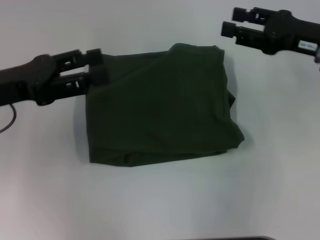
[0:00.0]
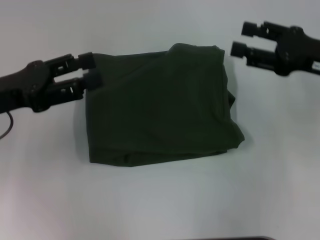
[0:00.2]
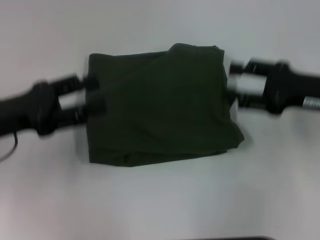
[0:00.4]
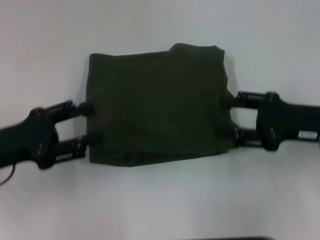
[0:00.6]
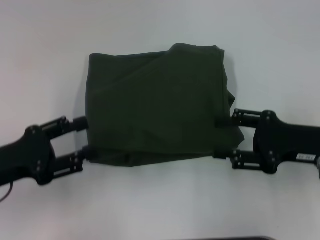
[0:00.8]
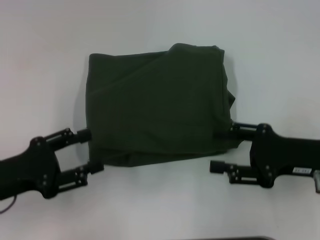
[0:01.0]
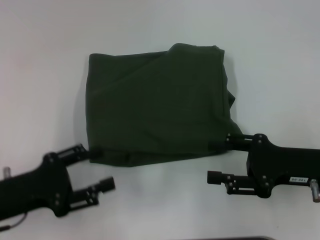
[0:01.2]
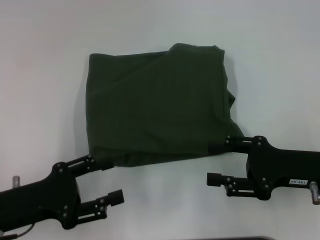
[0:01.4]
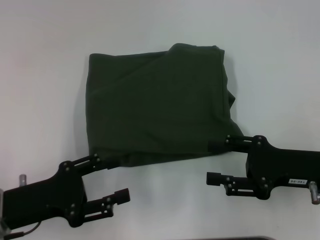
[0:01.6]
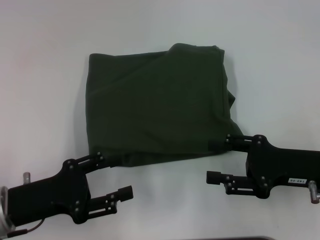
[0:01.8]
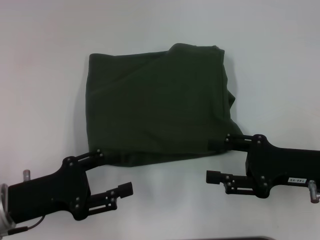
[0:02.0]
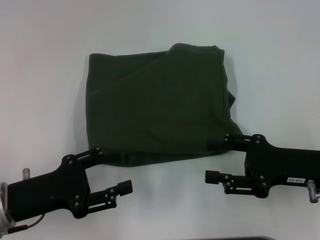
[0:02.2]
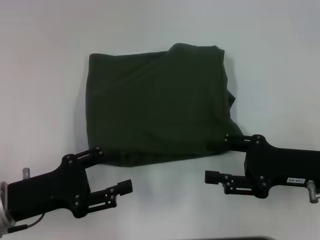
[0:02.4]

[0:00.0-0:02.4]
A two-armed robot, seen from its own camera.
0:00.0 to 0:01.2: The two grippers go approximately 15 cm backward and downward.
0:01.2 to 0:02.4: The grippers move only a little.
